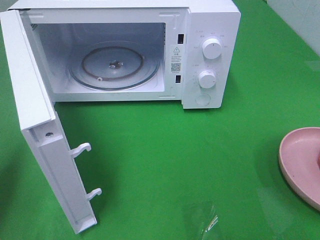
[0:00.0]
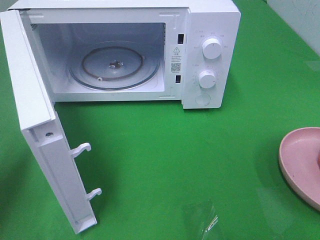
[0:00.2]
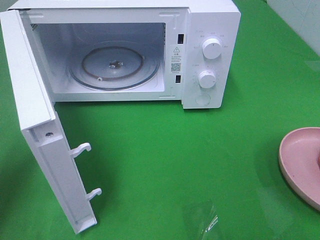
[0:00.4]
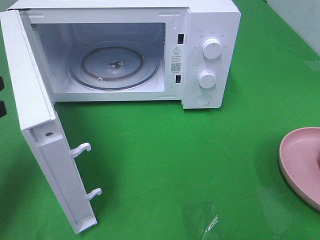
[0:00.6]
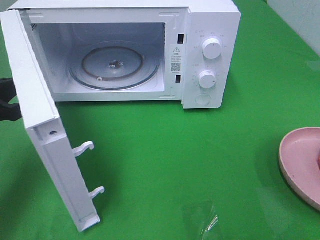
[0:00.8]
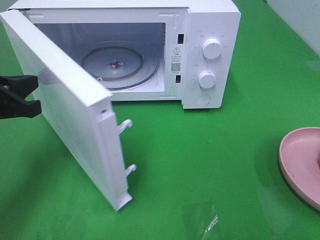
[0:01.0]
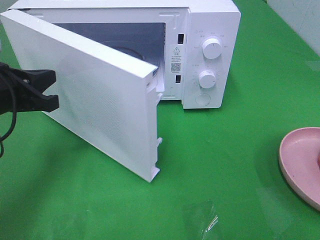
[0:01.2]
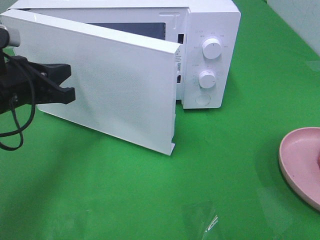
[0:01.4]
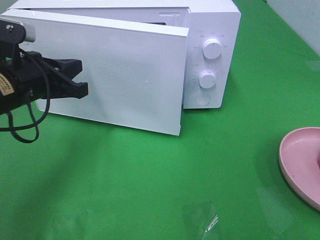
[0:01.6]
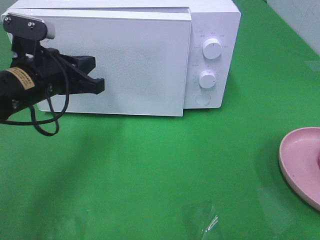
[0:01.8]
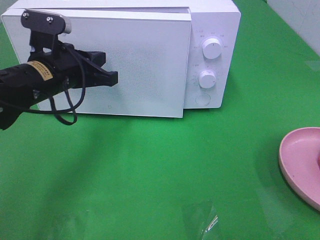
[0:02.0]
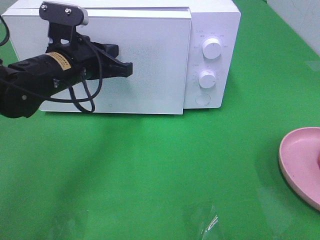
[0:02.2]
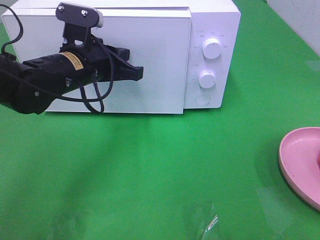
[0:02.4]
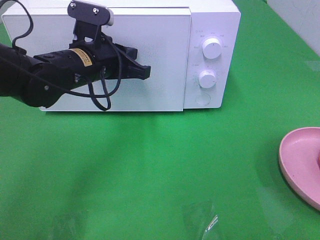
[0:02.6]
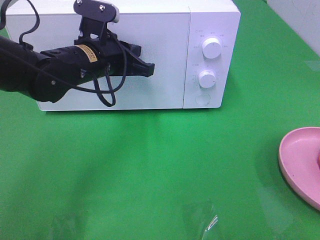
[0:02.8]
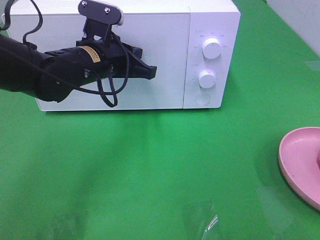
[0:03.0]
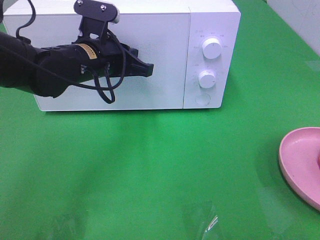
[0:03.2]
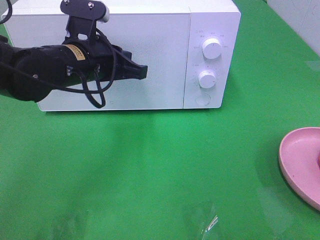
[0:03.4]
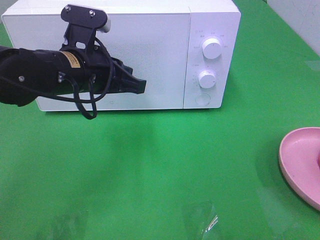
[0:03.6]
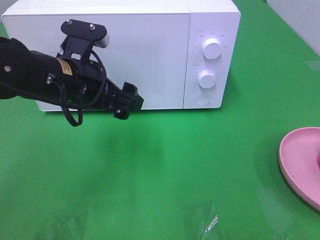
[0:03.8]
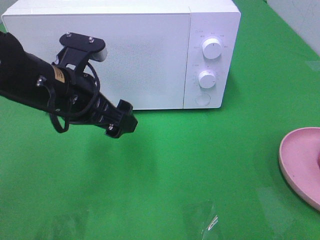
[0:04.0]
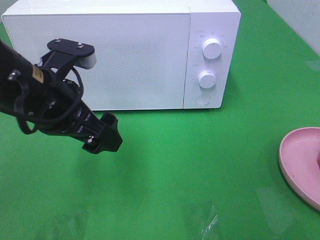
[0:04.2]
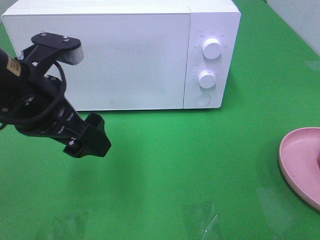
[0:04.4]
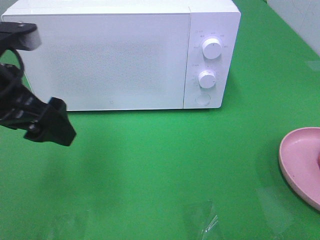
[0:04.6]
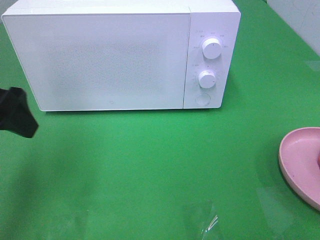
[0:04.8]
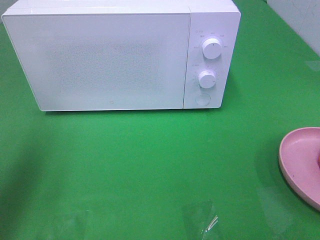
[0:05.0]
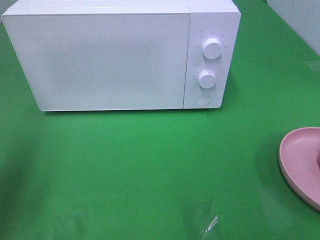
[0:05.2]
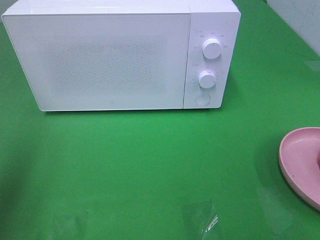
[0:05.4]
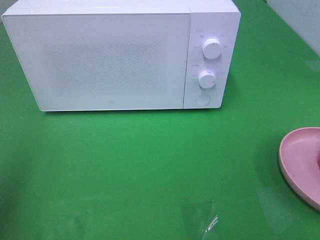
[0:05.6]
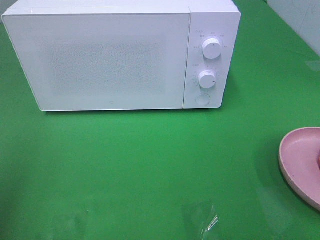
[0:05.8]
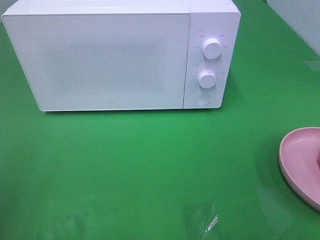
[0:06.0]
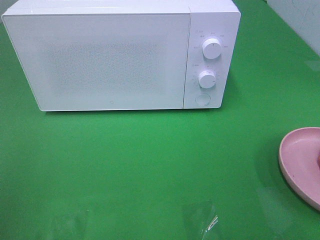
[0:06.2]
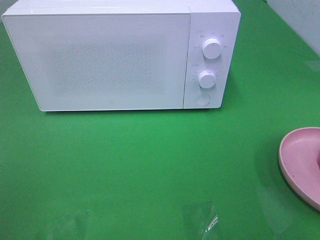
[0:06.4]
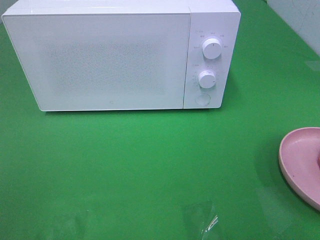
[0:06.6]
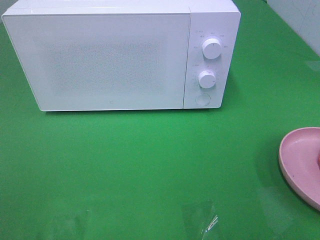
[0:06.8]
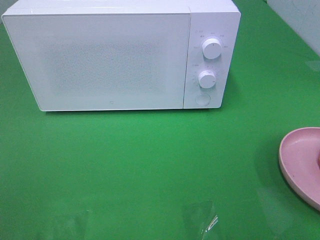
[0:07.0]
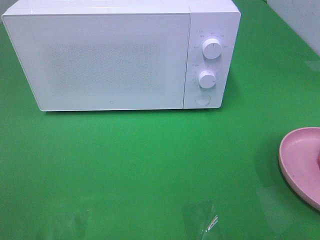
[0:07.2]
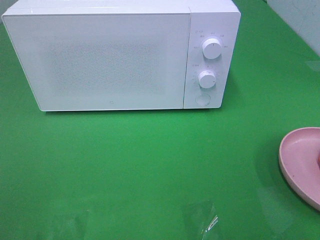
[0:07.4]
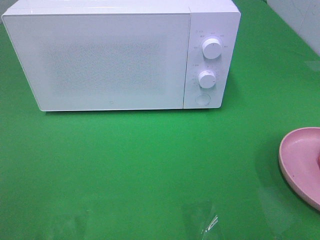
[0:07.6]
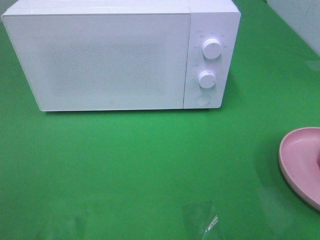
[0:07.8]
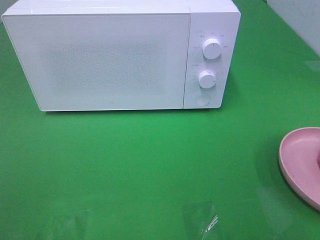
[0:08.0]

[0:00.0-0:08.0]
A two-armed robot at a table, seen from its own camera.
Task of the whole recording: Heat the burger.
Step, 0:00.0 to 0:02.8: Left hand: close the microwave door.
0:00.0 to 0:01.6: The left gripper shifts approximately 15 cm to the right and forward.
0:01.6 to 0:03.2: The left gripper is displaced to the right and forward by some 10 cm.
0:03.2 to 0:04.8: The left gripper goes approximately 20 cm to the left, backward and upward, and opens.
0:04.8 to 0:06.4: The left gripper is displaced backward by approximately 20 cm.

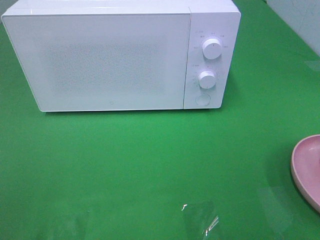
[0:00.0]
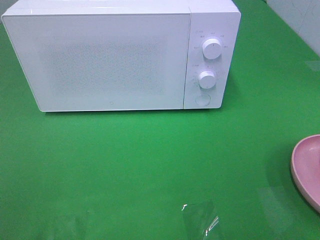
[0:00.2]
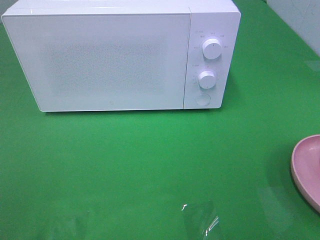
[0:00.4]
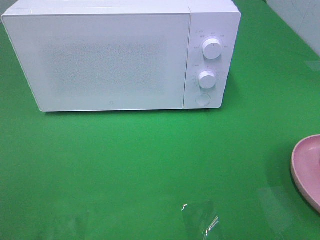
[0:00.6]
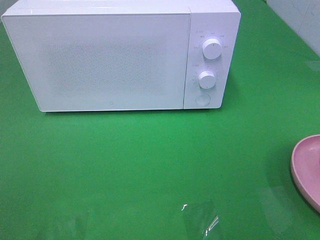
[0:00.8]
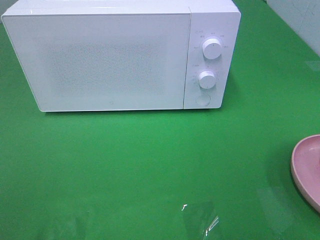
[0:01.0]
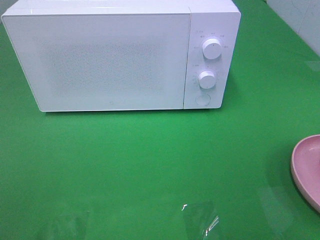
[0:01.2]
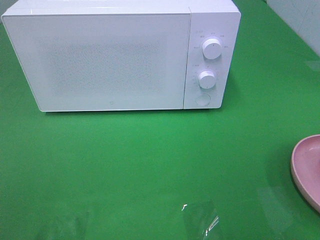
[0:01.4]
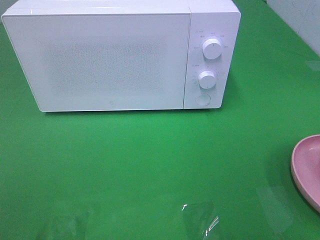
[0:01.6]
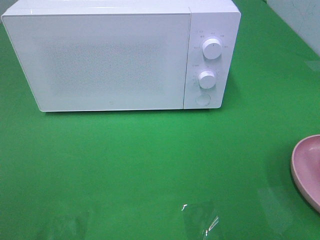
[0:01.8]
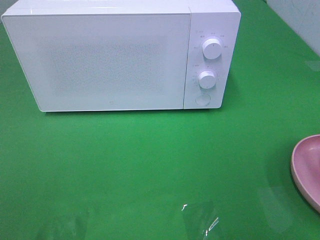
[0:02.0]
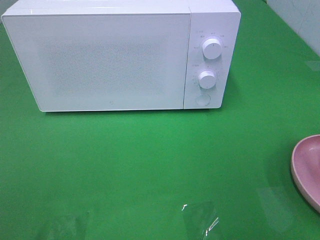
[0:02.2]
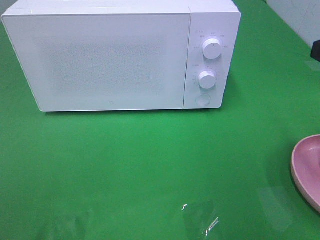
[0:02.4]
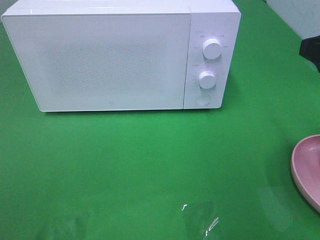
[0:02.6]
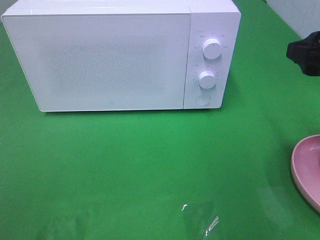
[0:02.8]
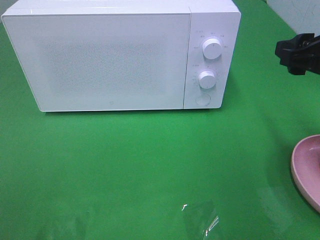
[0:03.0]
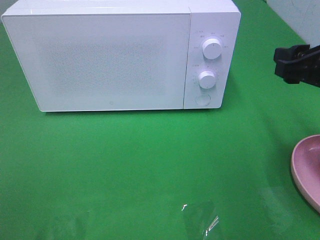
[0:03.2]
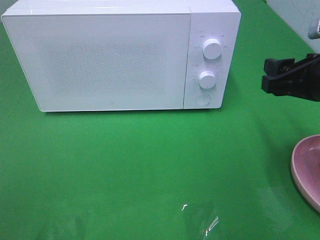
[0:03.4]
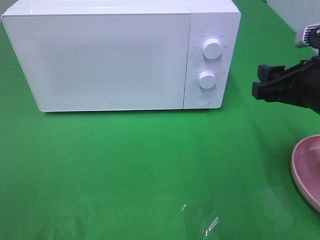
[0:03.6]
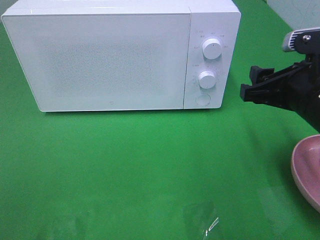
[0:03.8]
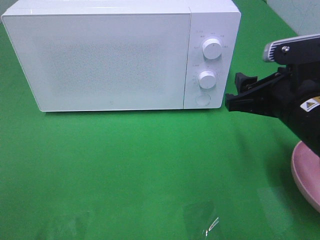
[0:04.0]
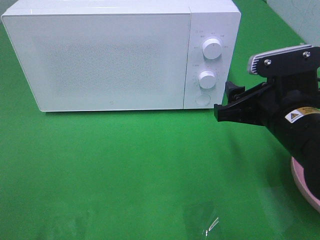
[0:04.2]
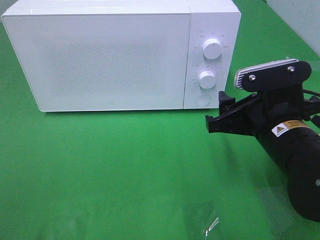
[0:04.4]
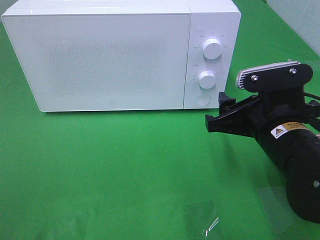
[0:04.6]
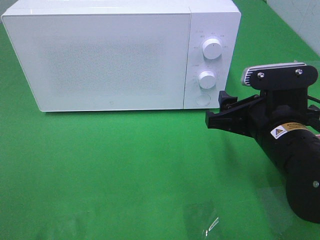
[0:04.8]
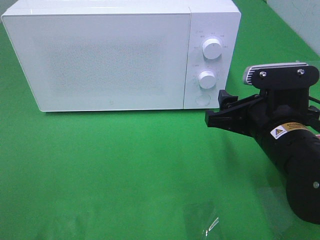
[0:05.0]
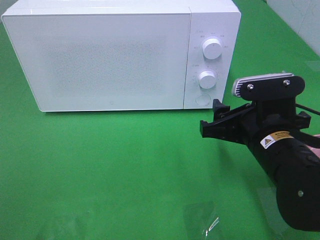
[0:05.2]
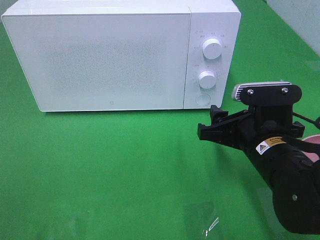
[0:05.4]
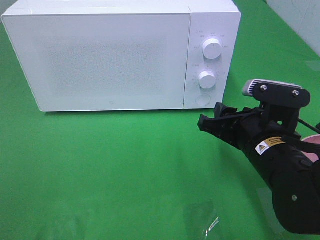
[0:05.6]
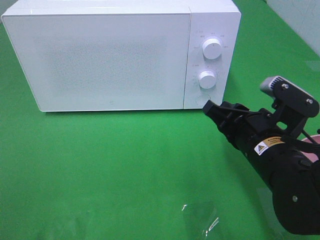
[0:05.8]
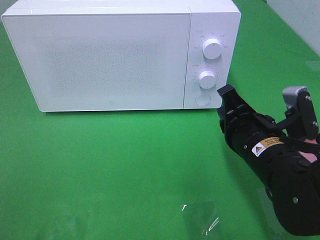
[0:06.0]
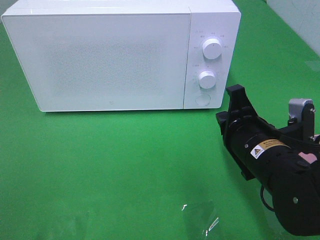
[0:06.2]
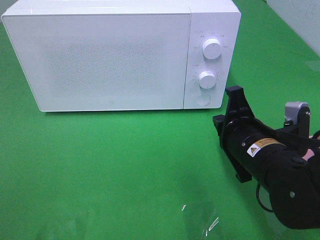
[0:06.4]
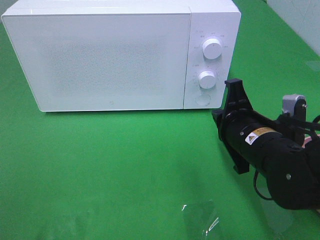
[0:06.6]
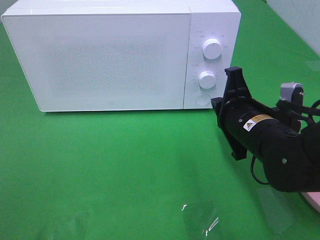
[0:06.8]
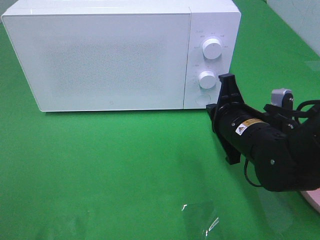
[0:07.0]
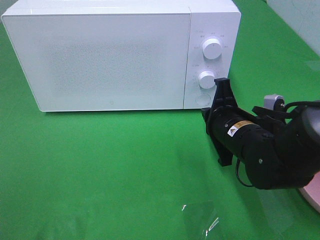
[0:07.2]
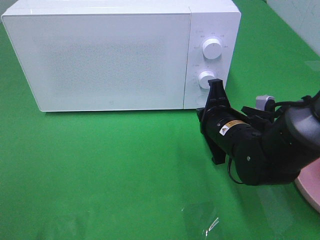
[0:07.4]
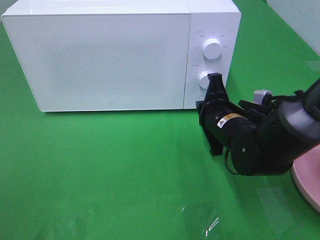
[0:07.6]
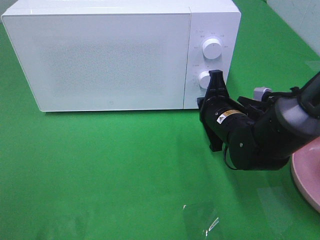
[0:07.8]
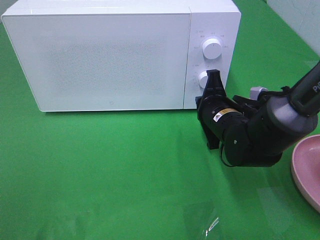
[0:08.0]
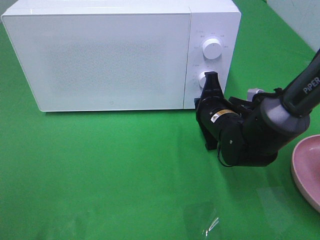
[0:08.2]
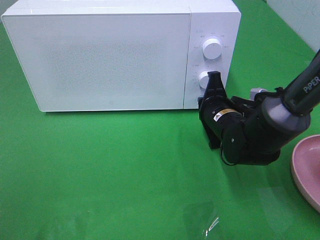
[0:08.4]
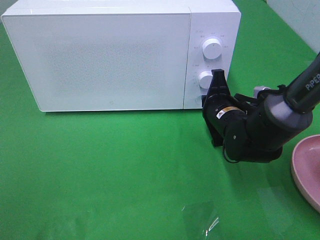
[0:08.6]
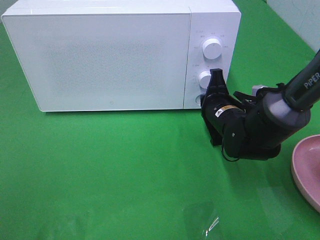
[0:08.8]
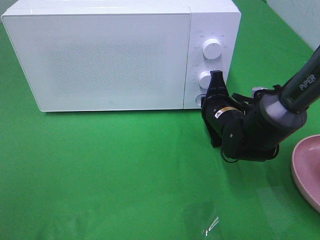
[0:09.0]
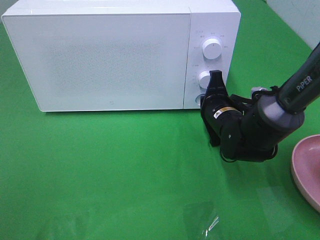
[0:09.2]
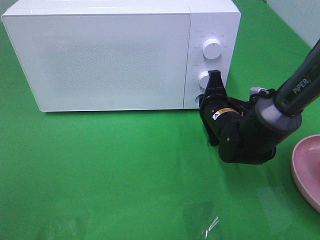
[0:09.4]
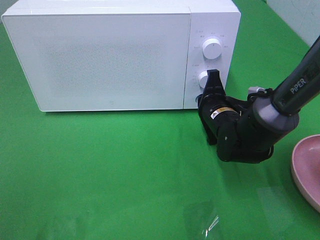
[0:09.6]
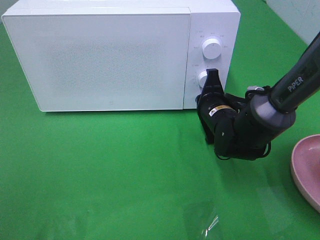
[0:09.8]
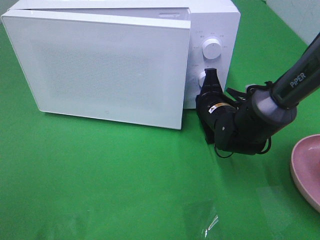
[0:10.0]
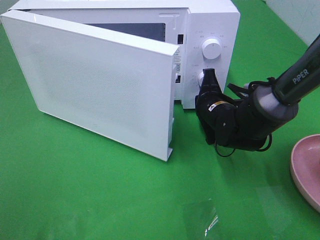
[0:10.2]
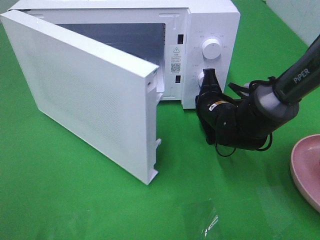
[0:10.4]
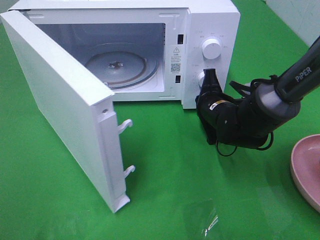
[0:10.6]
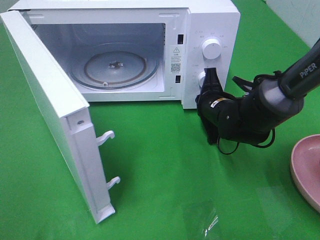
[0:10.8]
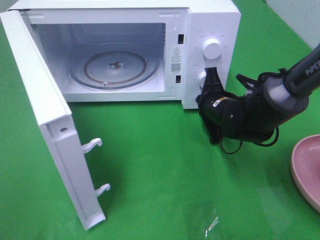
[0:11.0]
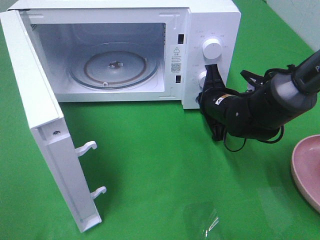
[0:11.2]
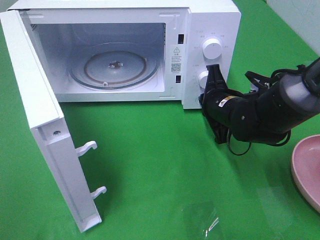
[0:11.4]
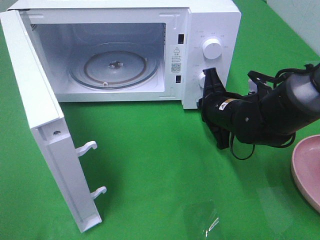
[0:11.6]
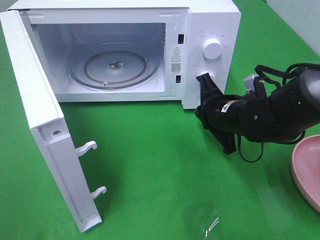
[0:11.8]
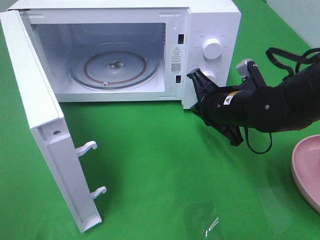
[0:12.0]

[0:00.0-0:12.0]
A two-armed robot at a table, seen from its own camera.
Task of the whole recording: Heat the burger.
Step, 0:00.0 to 0:11.4: Right hand: press the switch.
0:01.6 to 0:03.0: The right gripper travels forward and downward by some 15 cm.
0:03.0 to 0:04.4: The right gripper moves to the left and downward, some 15 cm.
0:04.4 to 0:06.0: The right gripper closes its fingers.
0:06.0 to 0:07.6: The right gripper moves forward, approximately 10 cm.
0:07.6 to 0:09.0: There are only small adjustments of the grippers.
0:10.4 to 0:12.0: The right gripper goes some 10 cm upward and backward.

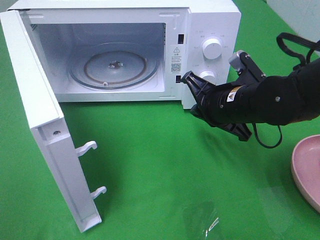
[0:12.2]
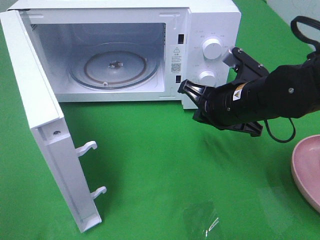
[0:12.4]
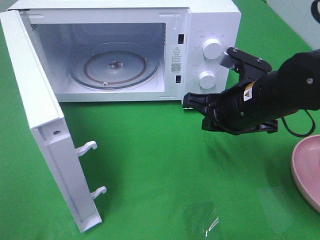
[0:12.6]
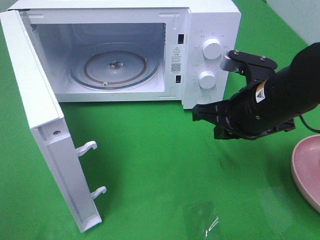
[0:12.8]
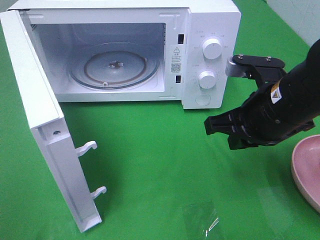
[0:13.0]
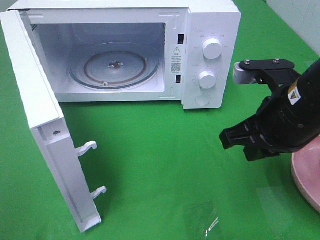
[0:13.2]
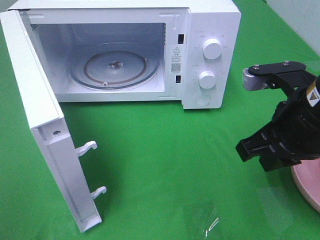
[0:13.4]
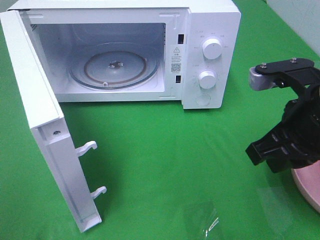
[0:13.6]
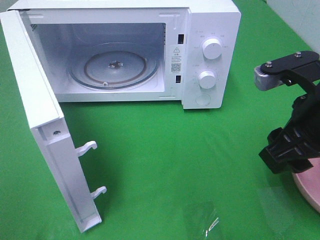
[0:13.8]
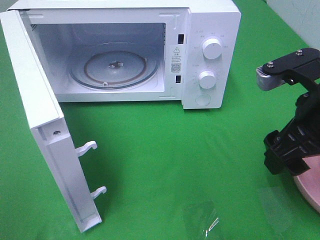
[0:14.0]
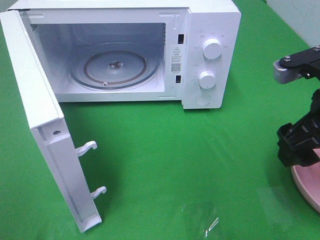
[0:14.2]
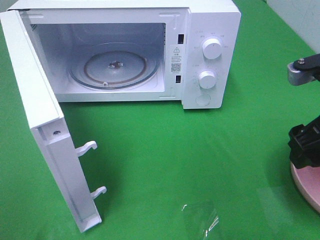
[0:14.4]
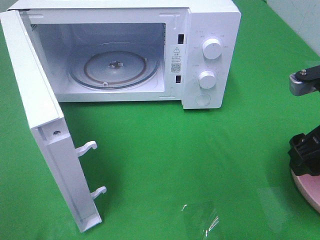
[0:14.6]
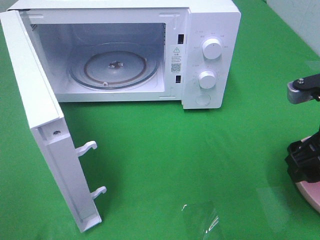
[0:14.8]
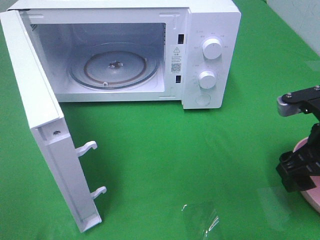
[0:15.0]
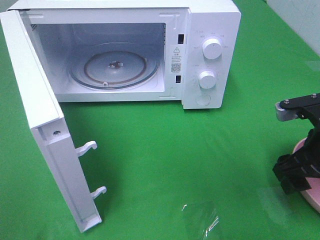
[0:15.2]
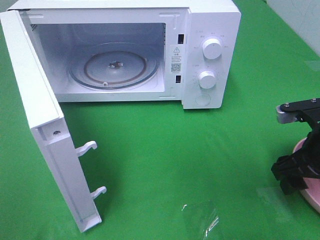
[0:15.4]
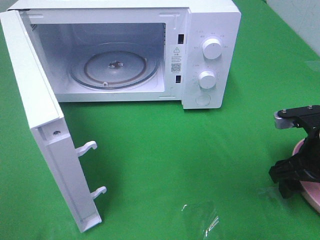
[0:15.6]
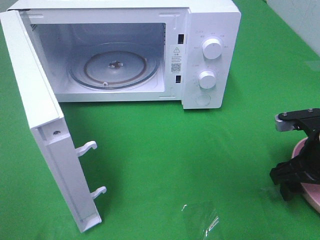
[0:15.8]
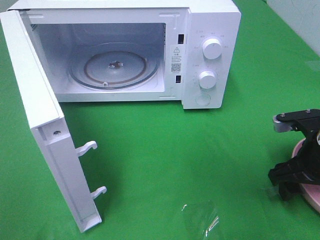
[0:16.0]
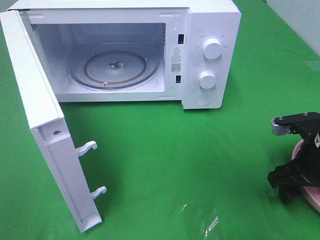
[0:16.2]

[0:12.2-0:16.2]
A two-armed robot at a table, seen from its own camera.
Task of the whole recording: Heat the burger.
0:12.2 to 0:13.6: The right gripper shifts about 15 cm backward, upward and to the right.
0:13.6 to 0:14.8: The right gripper heads to the right, covering some 5 cm, and opens its fingers.
0:14.8 to 0:16.2: The right gripper goes about 10 cm downward.
